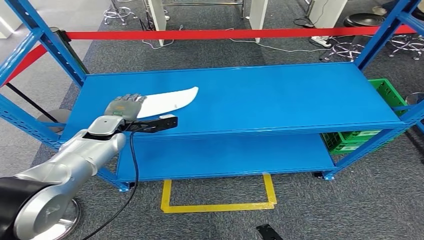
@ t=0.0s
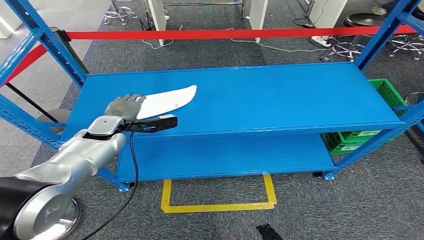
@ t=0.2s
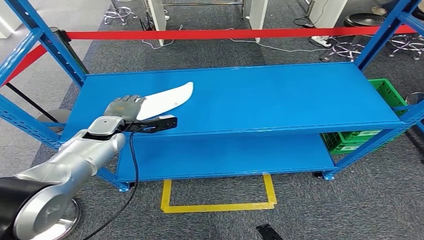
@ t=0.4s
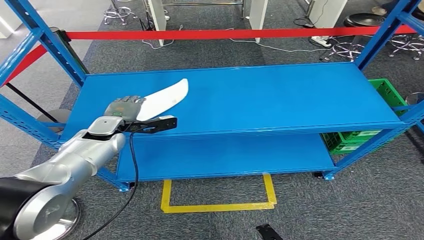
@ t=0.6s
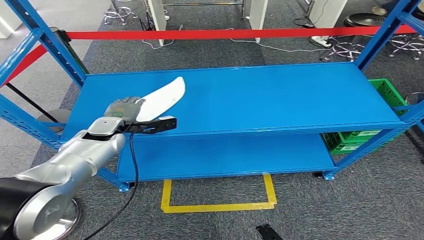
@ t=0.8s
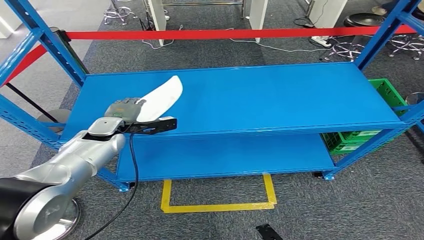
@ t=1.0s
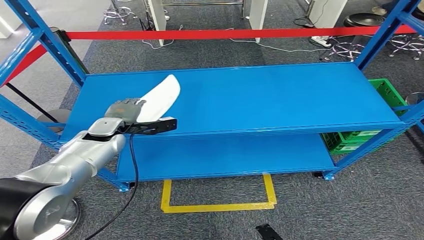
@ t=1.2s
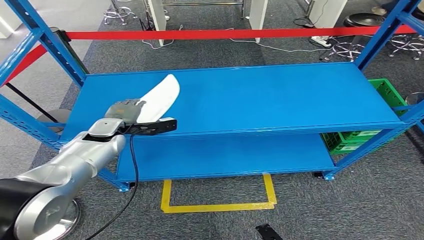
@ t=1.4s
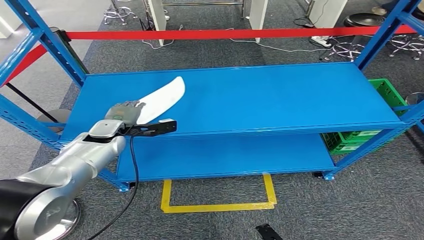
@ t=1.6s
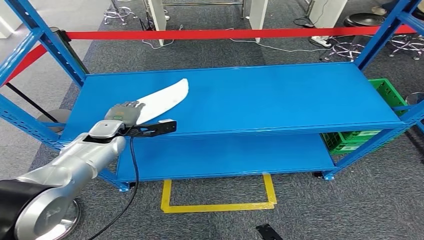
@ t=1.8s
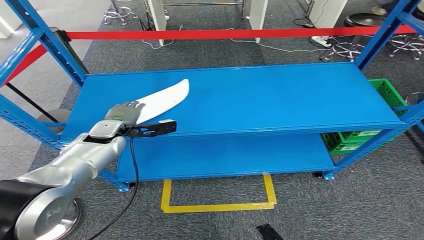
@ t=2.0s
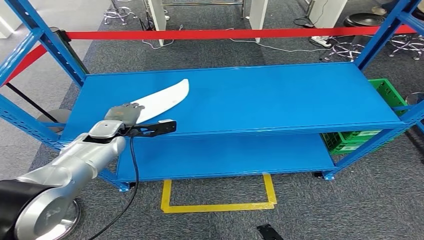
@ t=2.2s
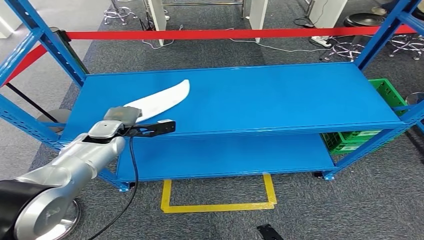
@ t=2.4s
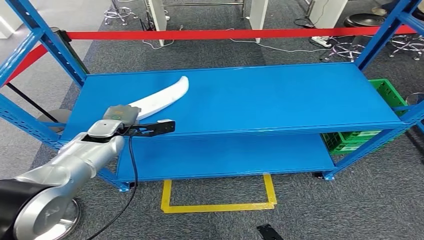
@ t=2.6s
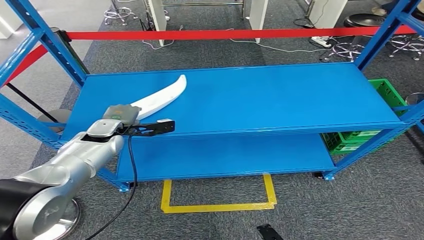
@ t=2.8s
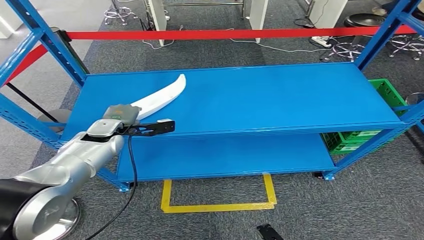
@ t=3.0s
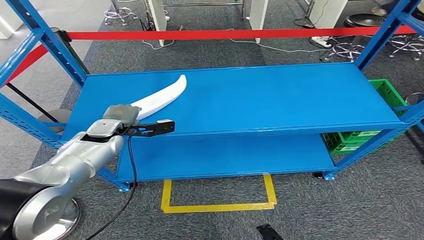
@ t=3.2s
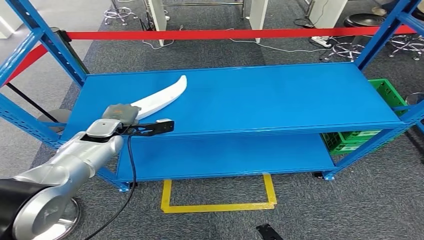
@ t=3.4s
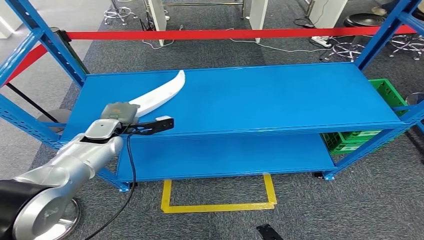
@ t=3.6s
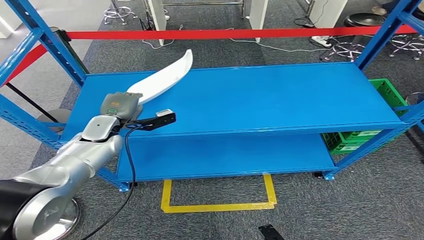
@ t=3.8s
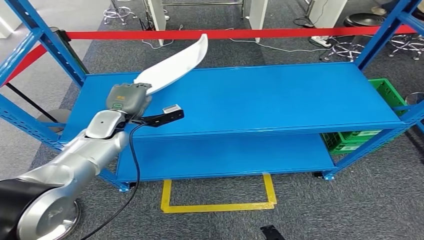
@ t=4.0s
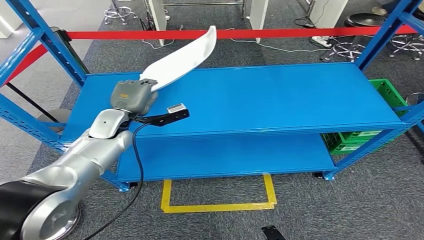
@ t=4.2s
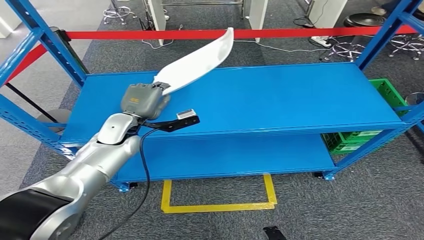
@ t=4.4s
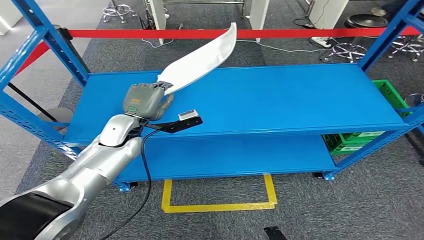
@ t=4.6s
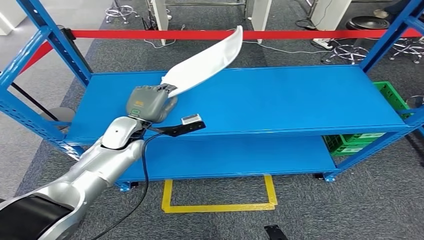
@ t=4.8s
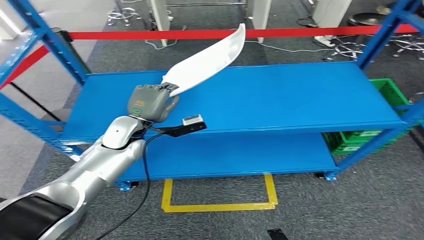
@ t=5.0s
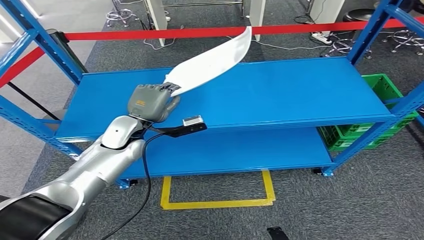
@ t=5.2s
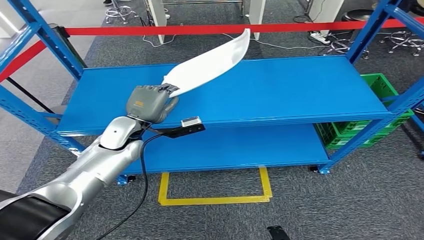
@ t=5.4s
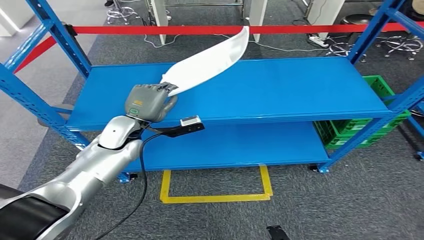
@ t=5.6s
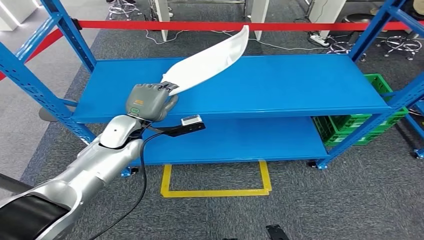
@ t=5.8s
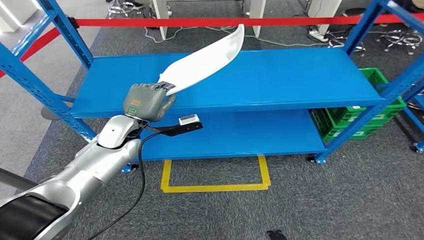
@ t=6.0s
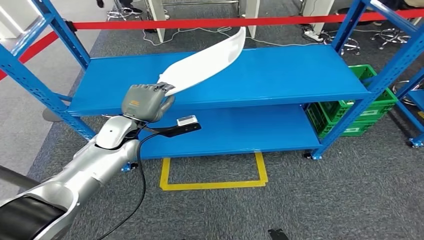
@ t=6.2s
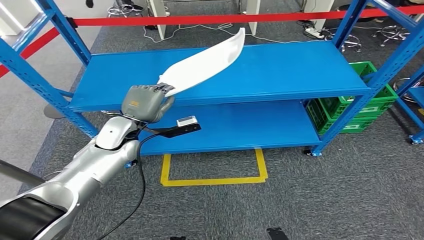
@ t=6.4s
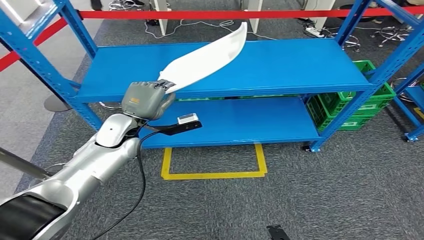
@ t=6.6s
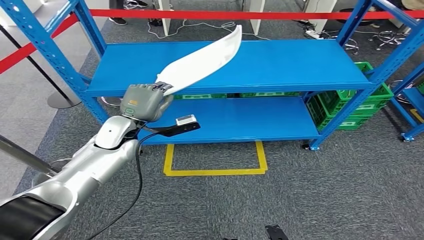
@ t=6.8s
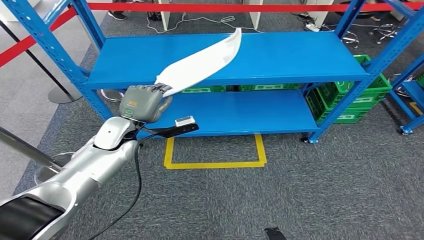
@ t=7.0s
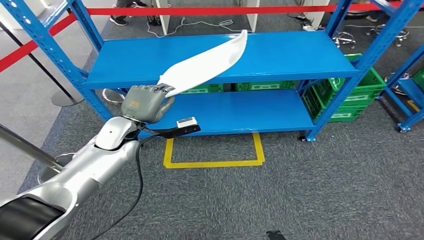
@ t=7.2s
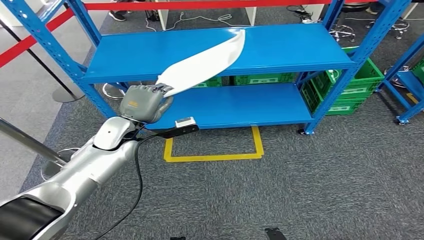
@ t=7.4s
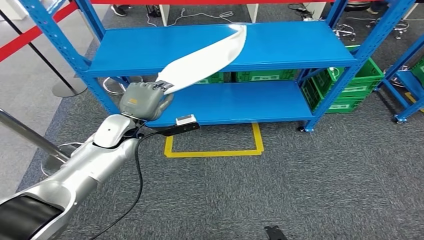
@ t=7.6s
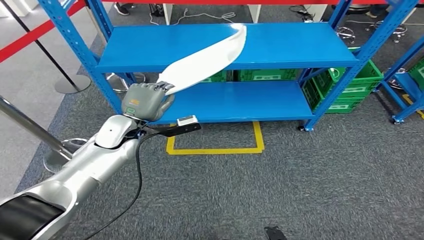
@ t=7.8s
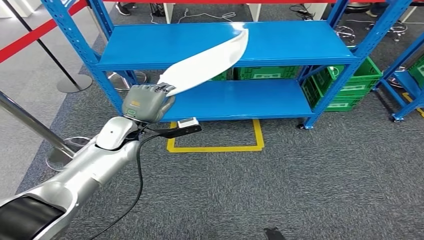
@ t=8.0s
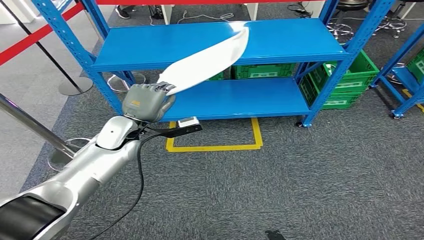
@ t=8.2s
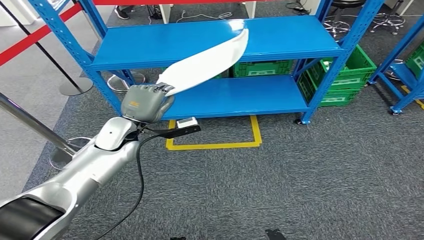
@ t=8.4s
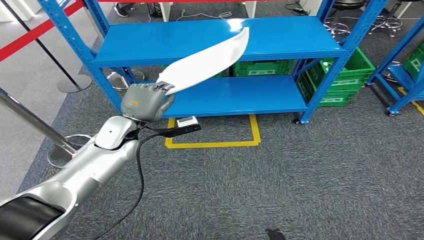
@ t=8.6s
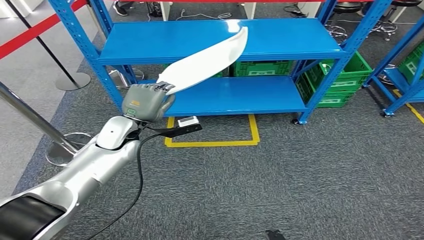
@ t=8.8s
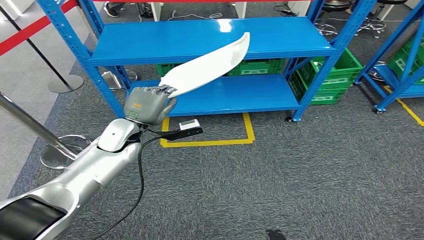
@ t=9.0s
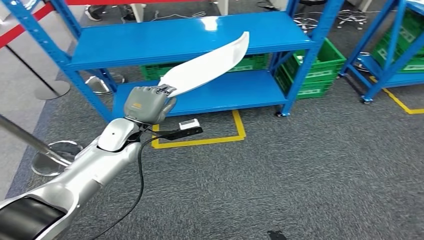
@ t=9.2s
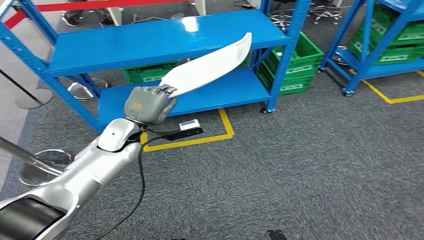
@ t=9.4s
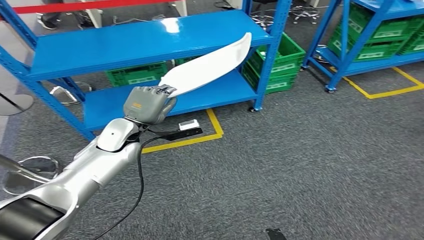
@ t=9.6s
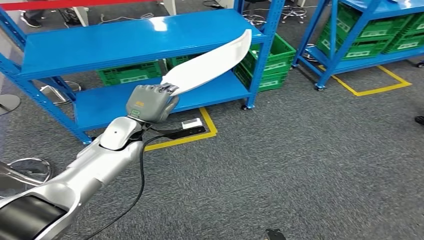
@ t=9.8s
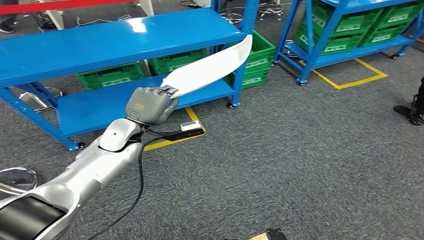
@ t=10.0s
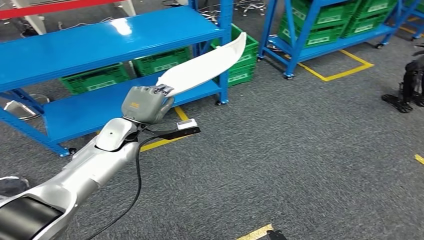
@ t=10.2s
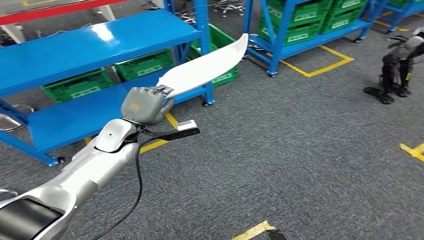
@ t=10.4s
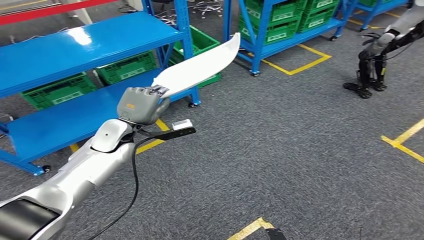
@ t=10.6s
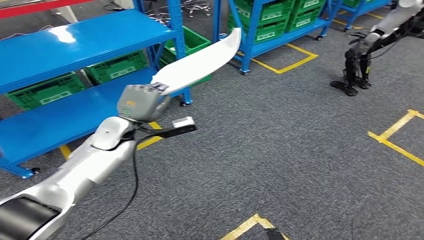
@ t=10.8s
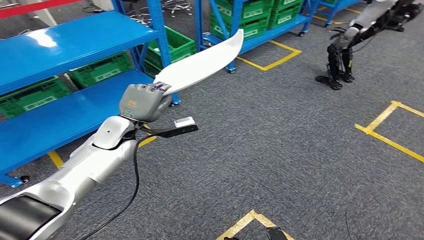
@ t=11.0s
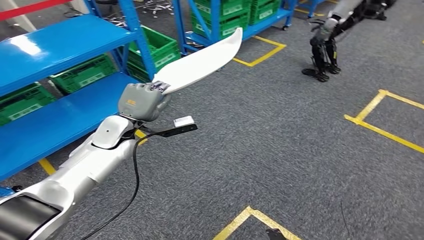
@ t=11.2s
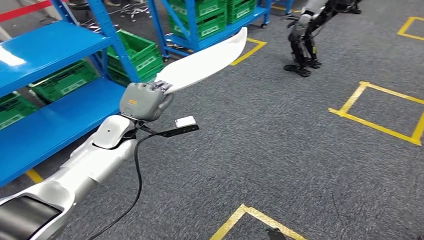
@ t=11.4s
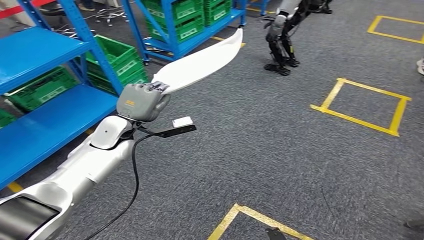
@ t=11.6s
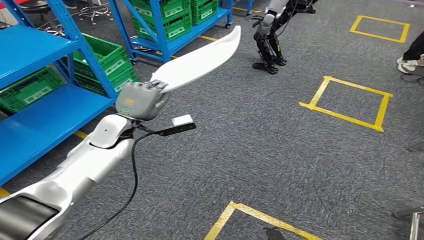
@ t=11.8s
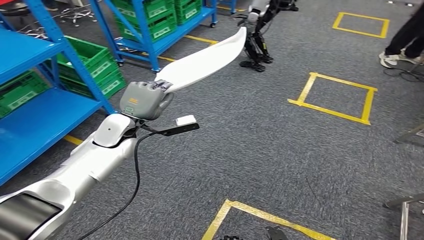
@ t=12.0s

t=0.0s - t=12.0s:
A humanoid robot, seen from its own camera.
Step, t=0.0s - t=5.6s: Pick up the small component from the shelf.
t=0.0s - t=1.6s: Both hands stay put.
t=1.6s - t=3.0s: Both hands stay about where they are.
t=3.0s - t=4.4s: The left hand moves to the right, some 5 cm.

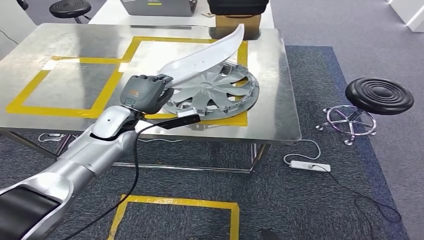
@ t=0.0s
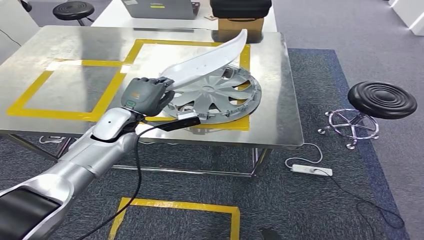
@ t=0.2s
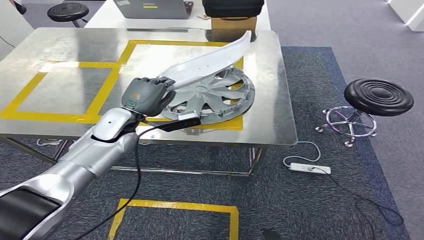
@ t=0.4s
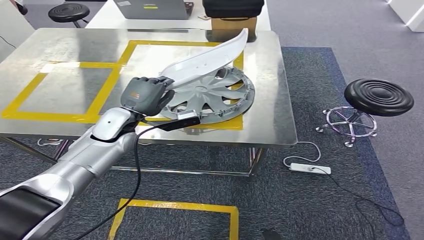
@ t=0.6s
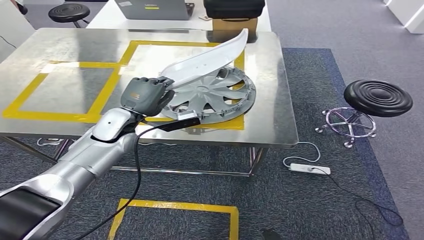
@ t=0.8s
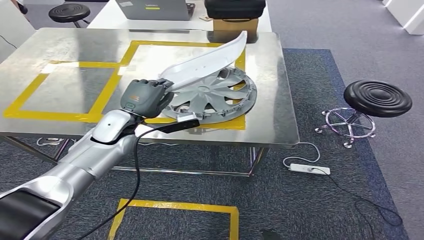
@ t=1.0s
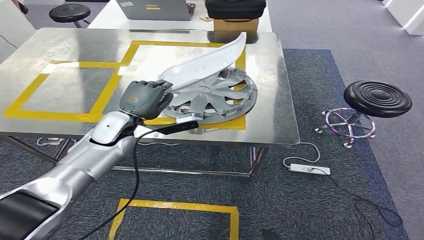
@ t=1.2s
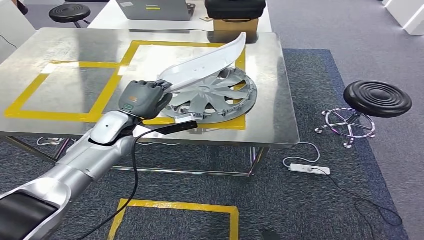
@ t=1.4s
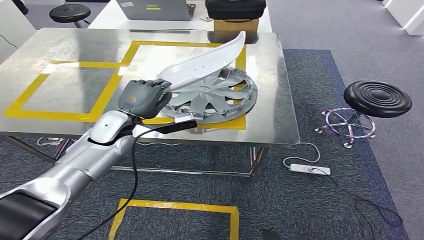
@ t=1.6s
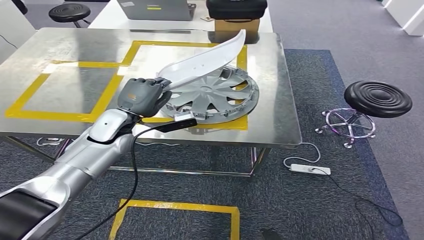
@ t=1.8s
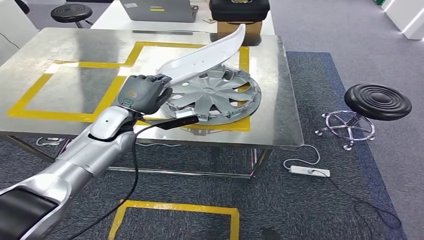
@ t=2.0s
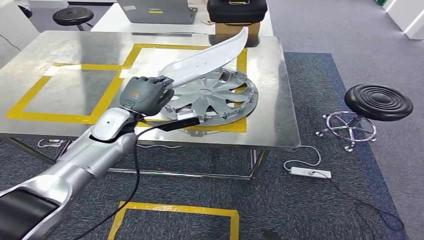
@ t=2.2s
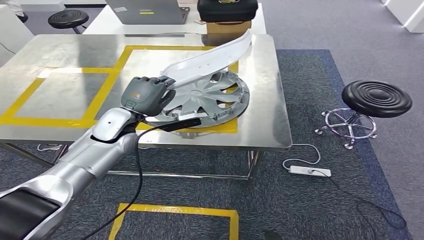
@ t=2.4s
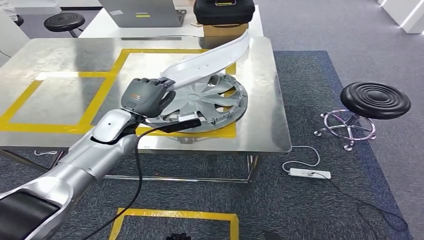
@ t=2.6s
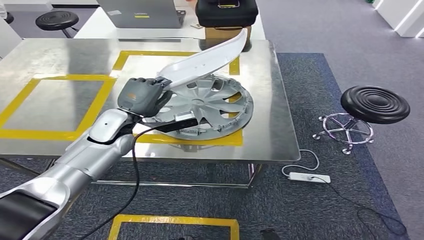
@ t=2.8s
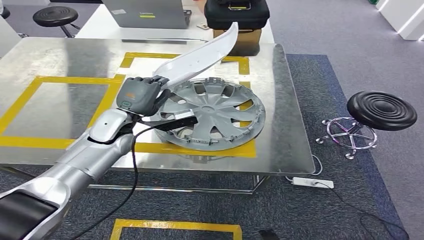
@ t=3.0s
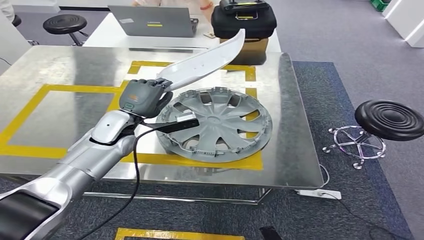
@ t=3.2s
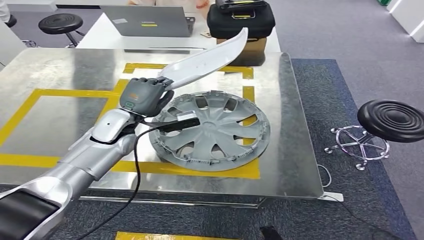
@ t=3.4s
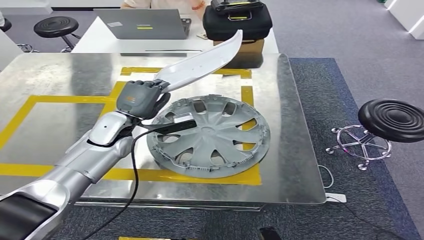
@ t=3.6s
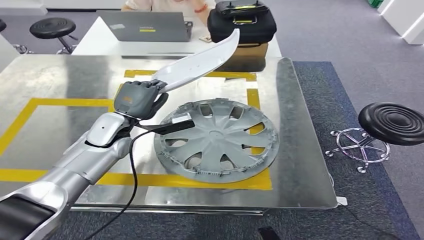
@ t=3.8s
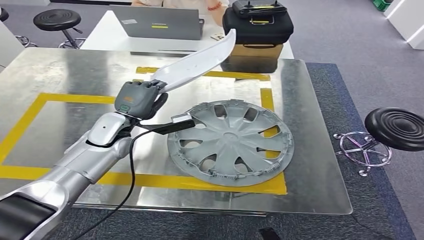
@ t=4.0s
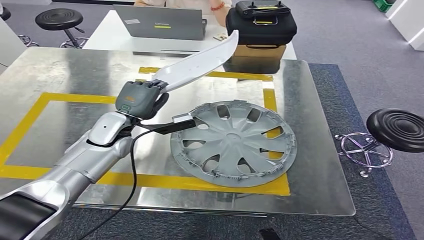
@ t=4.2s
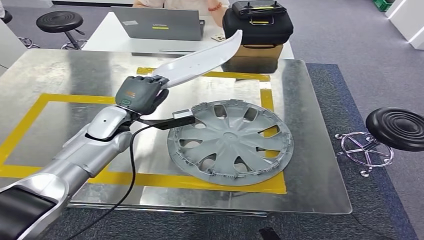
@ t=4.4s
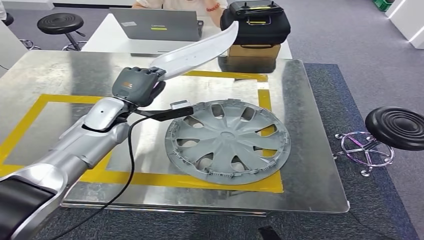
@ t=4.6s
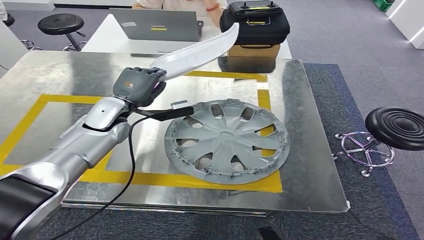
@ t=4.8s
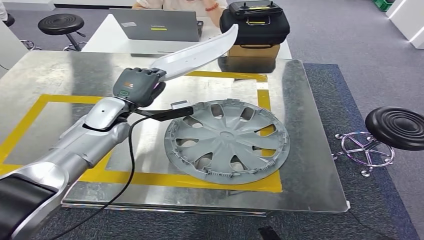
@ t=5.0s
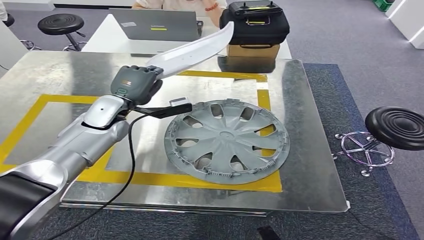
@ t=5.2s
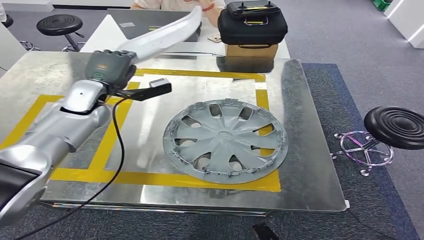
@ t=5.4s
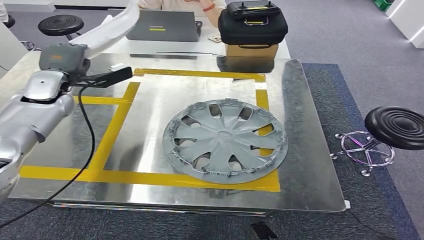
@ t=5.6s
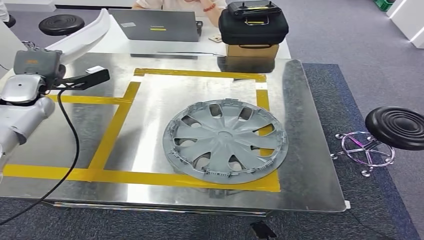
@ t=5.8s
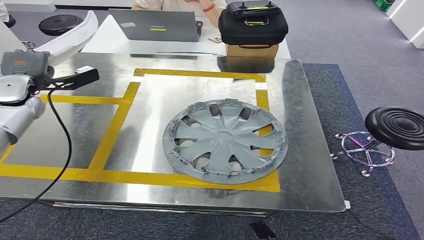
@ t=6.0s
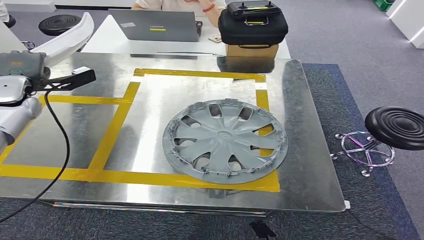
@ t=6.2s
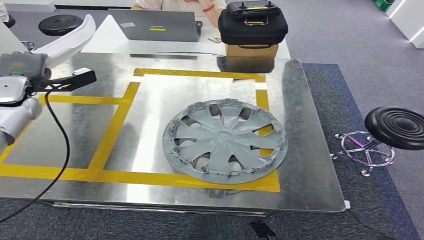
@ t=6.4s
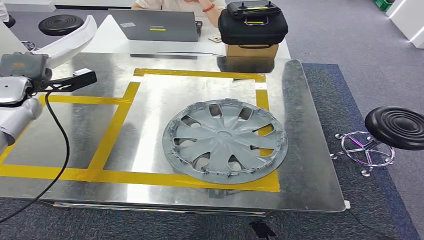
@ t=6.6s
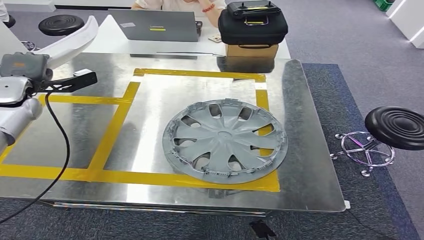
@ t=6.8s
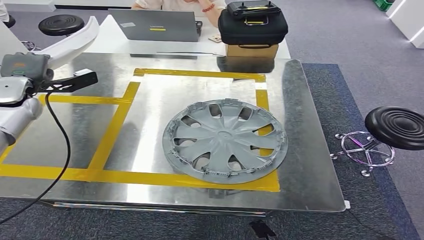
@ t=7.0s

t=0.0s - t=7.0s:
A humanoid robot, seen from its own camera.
t=5.6s - t=7.0s: The left hand travels to the left by some 10 cm.
